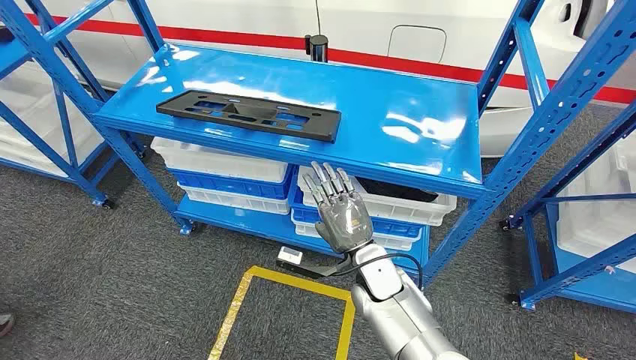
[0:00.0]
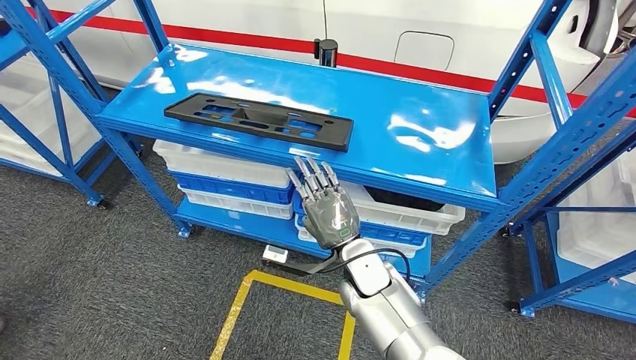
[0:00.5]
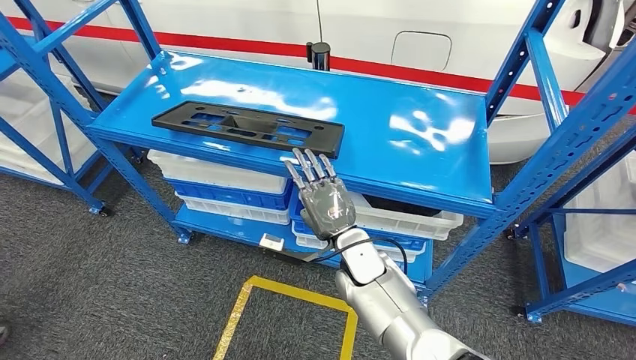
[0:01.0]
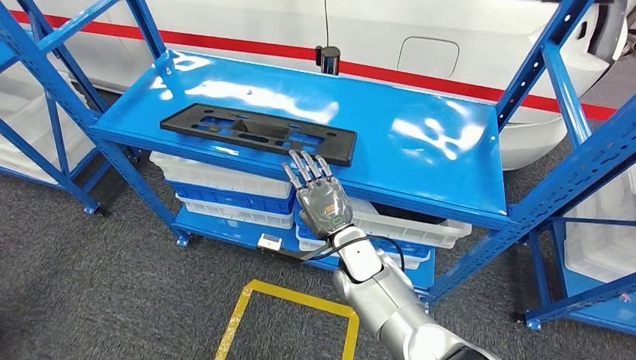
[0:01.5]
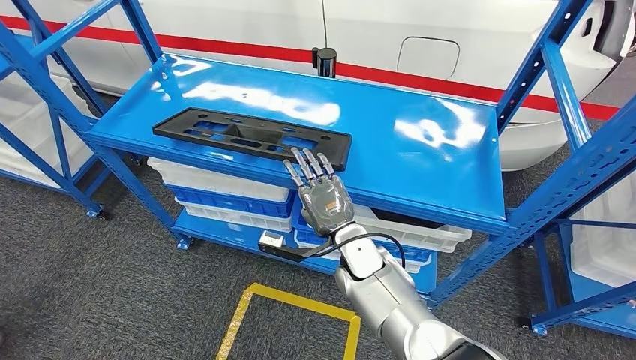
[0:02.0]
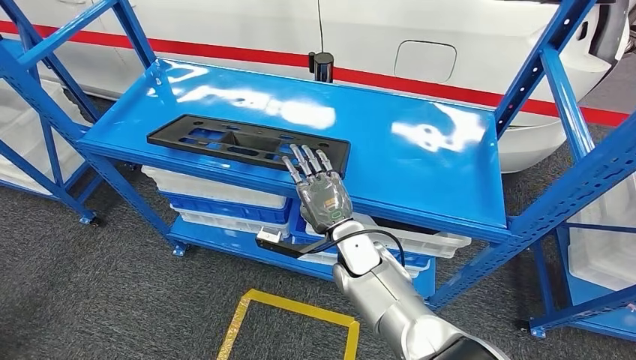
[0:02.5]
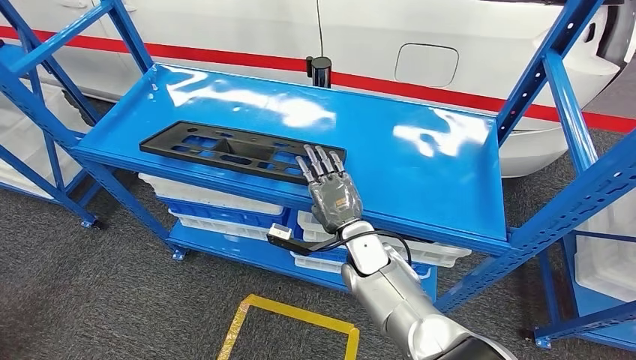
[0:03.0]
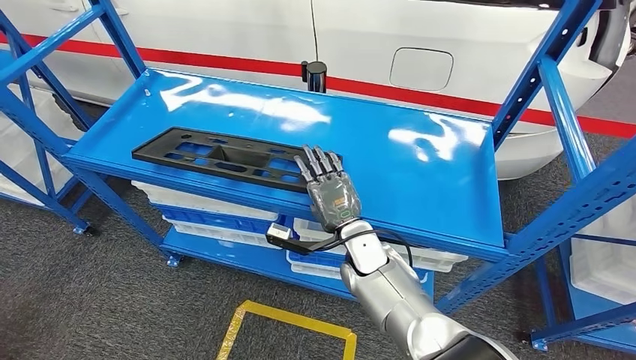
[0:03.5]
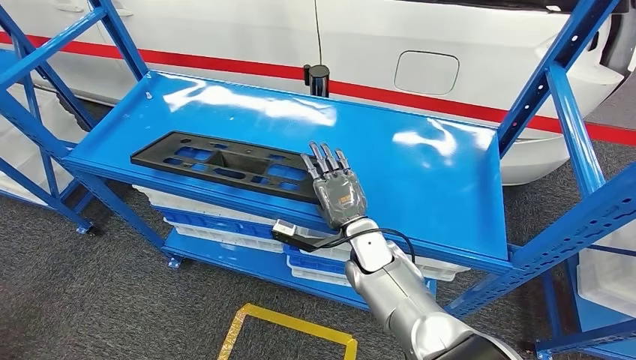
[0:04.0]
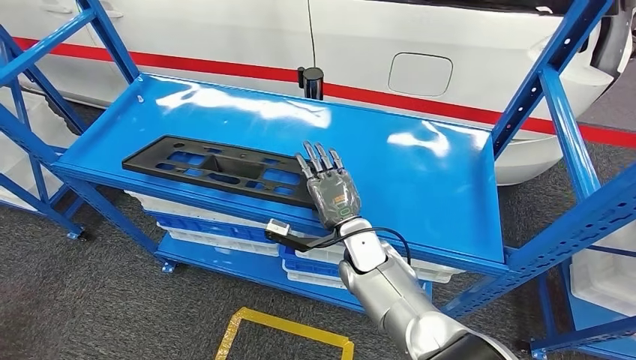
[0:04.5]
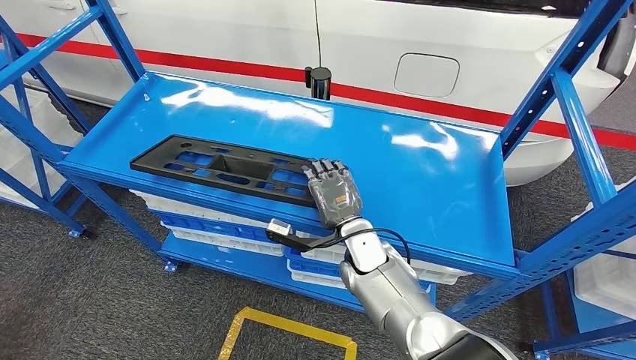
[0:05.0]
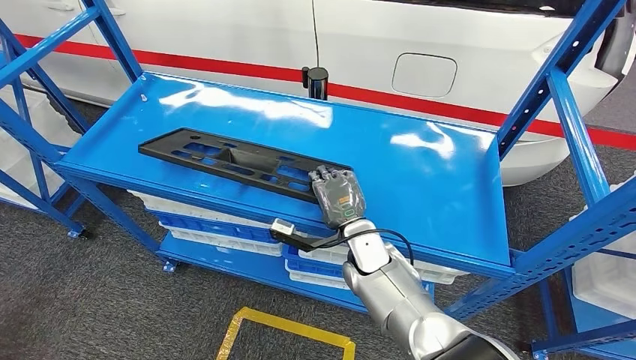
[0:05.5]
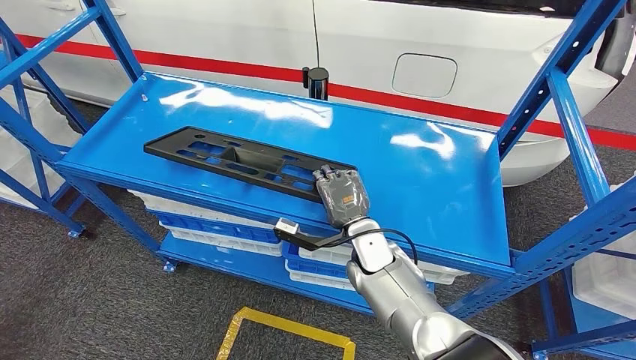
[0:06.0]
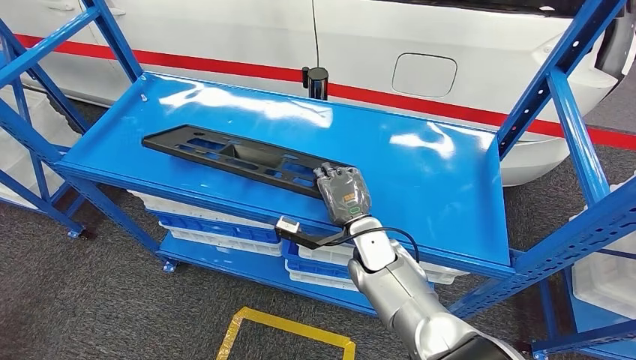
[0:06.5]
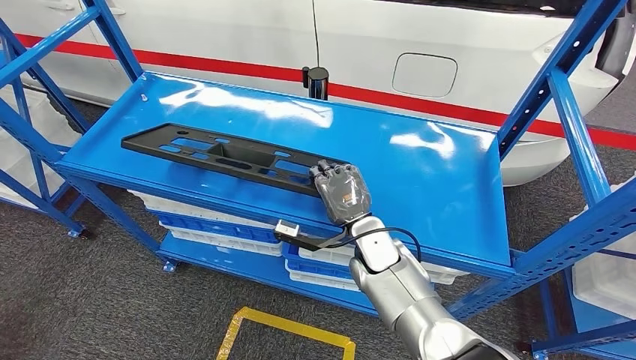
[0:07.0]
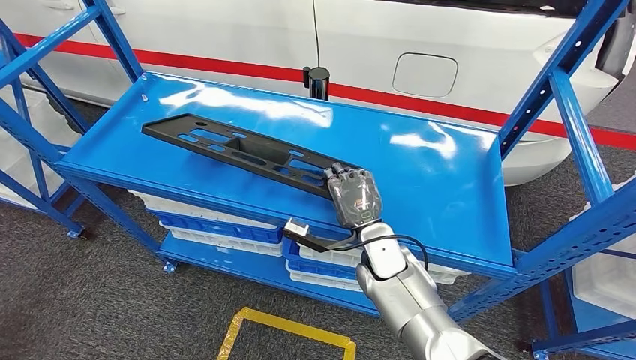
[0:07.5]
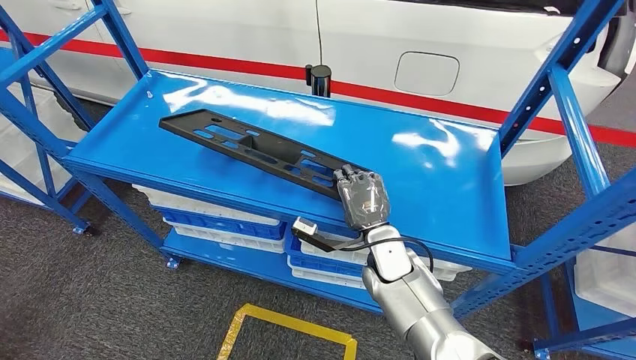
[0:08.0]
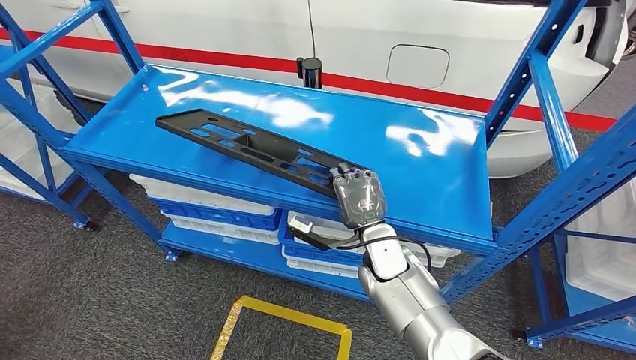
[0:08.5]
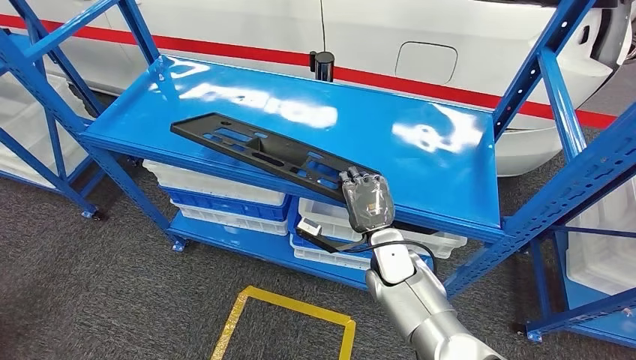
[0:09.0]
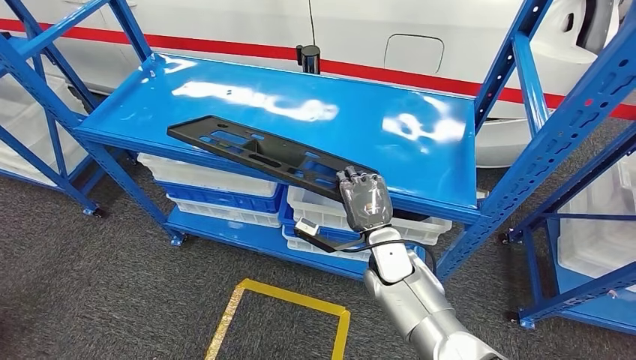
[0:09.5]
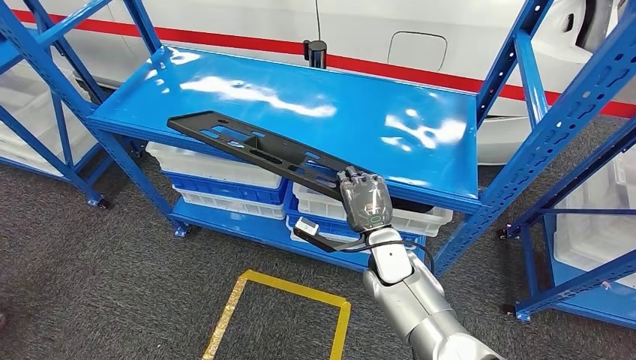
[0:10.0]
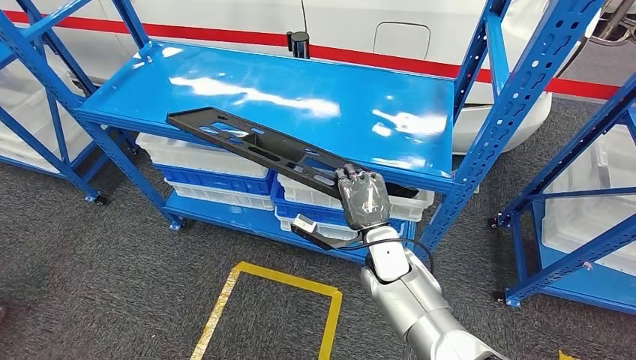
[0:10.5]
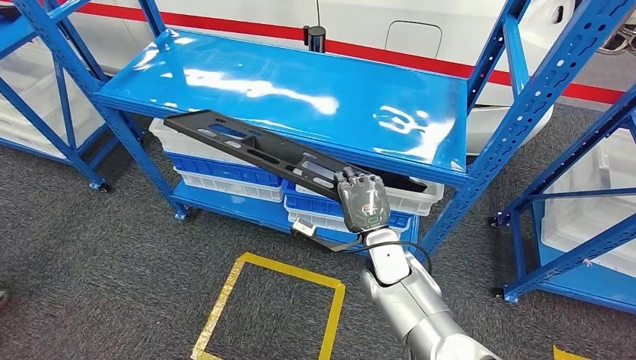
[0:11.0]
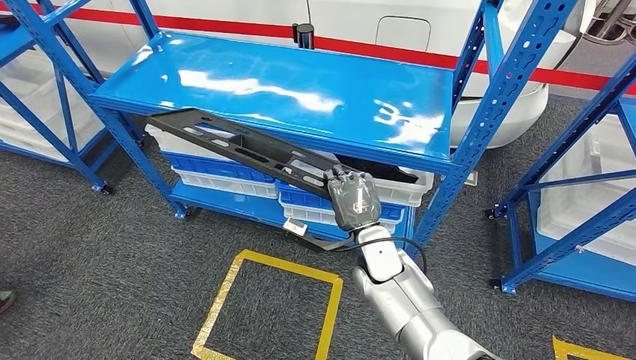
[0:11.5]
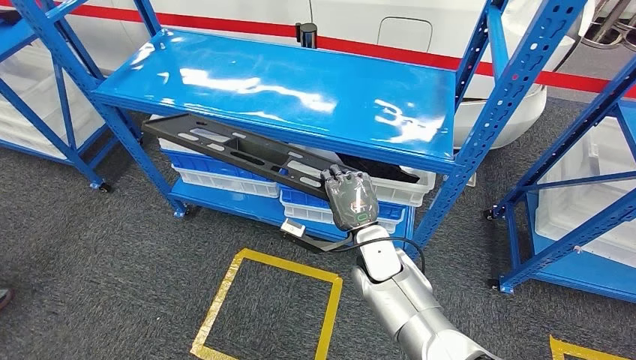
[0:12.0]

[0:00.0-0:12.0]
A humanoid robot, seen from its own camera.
Step, 0:00.0 to 0:09.0: Pick up the large material from the shelf.

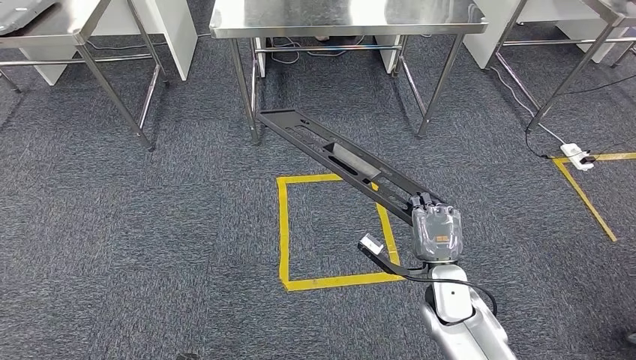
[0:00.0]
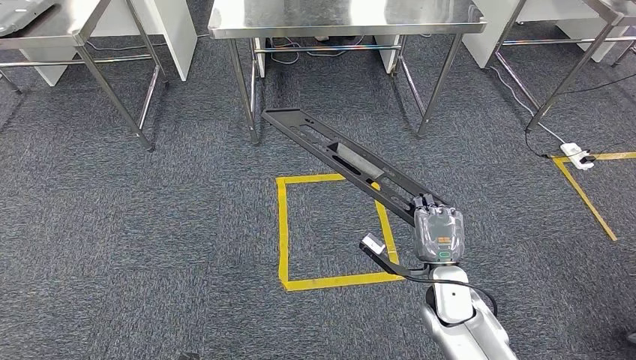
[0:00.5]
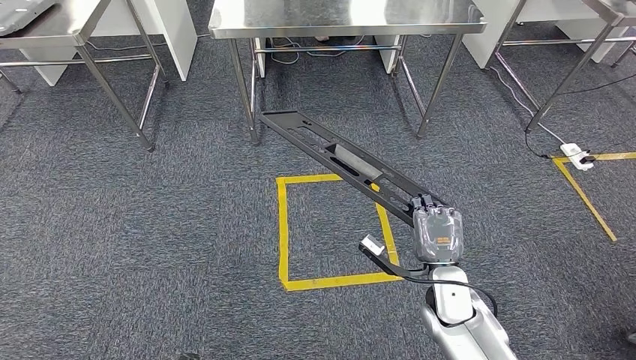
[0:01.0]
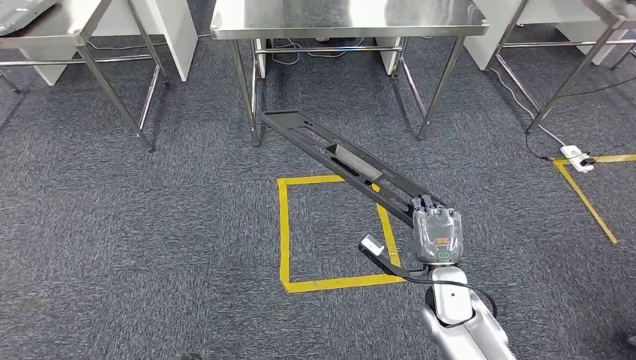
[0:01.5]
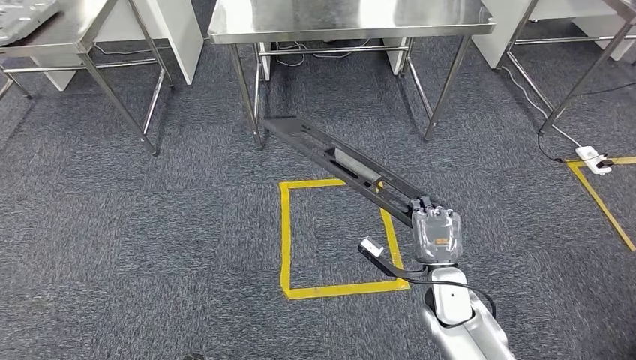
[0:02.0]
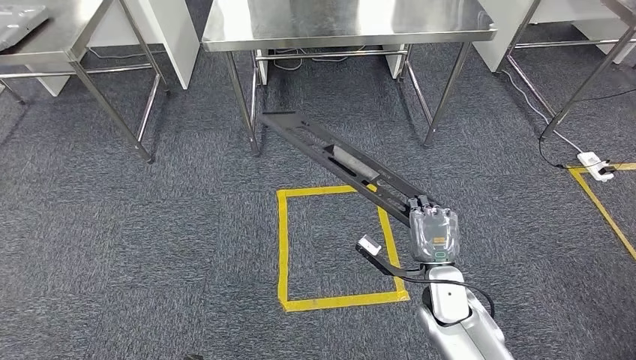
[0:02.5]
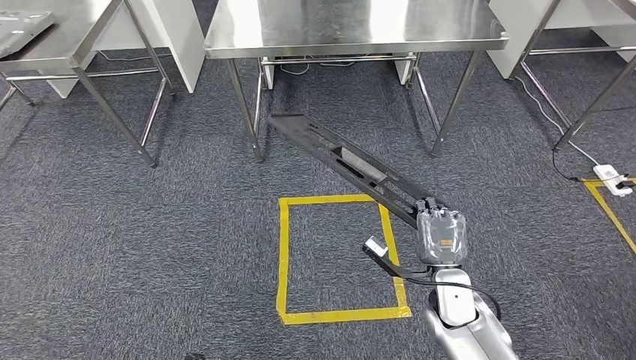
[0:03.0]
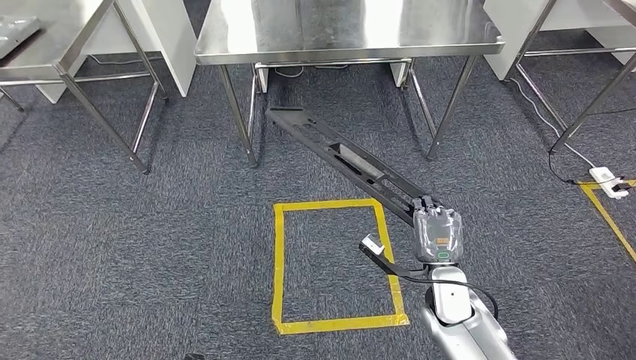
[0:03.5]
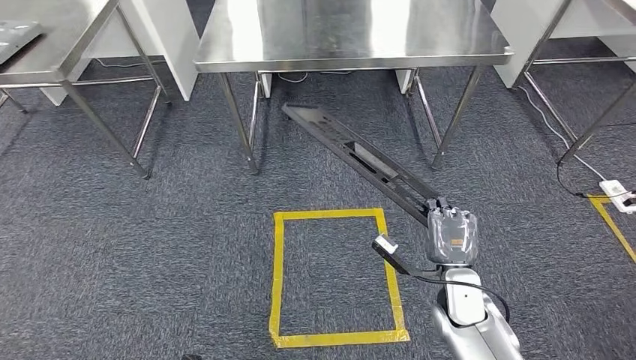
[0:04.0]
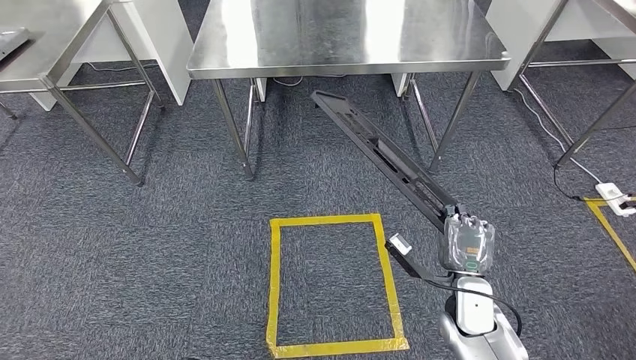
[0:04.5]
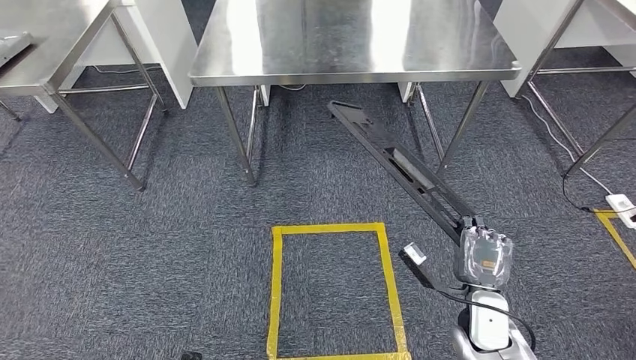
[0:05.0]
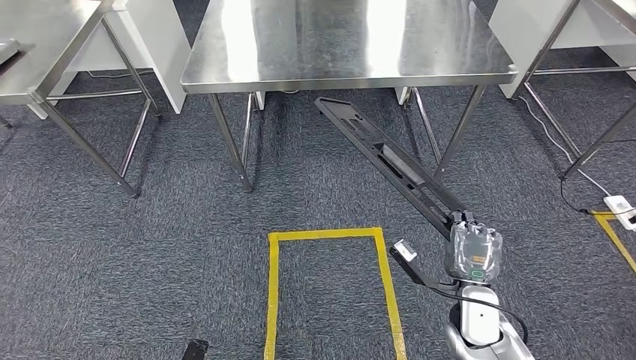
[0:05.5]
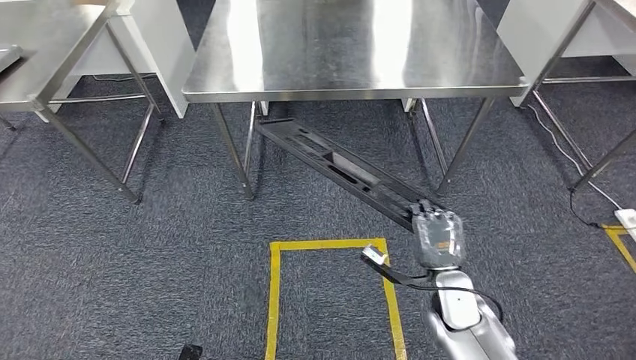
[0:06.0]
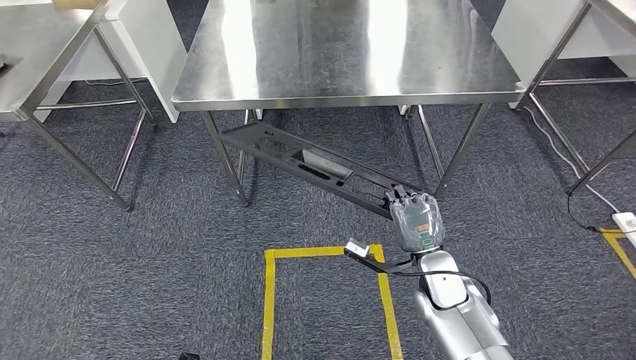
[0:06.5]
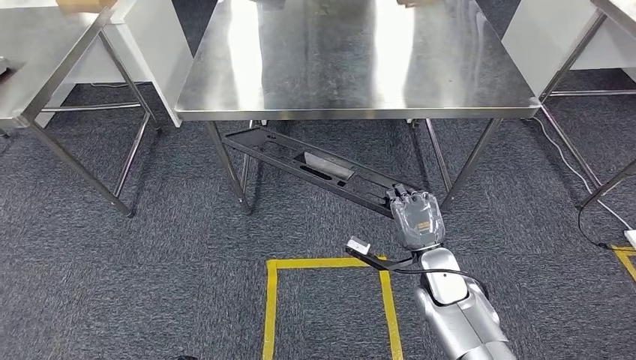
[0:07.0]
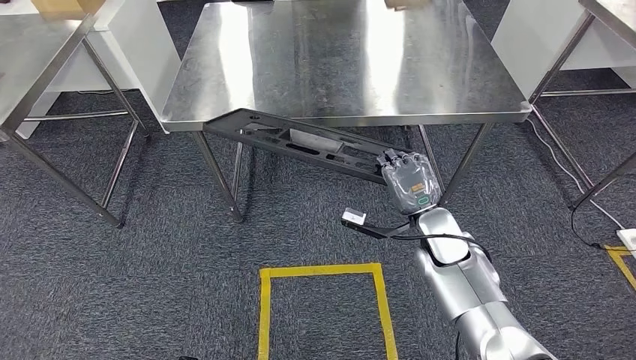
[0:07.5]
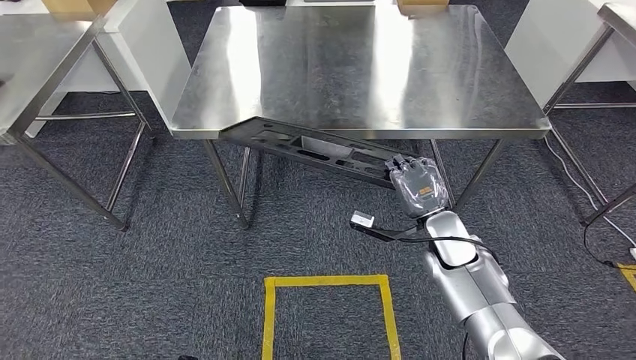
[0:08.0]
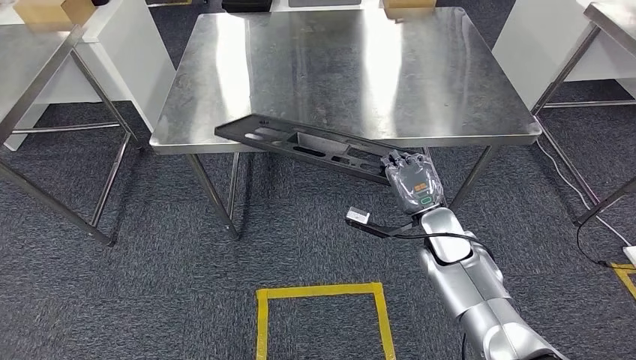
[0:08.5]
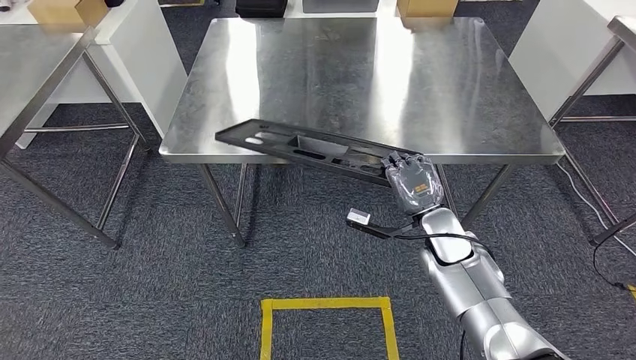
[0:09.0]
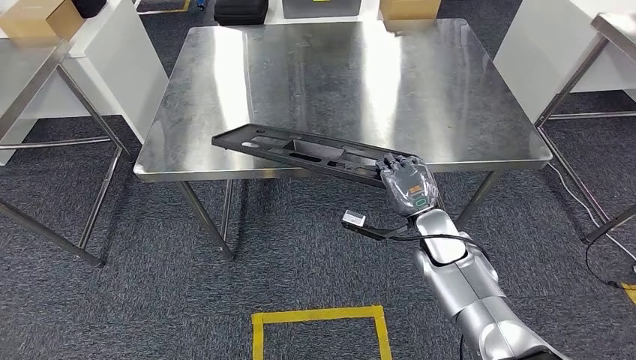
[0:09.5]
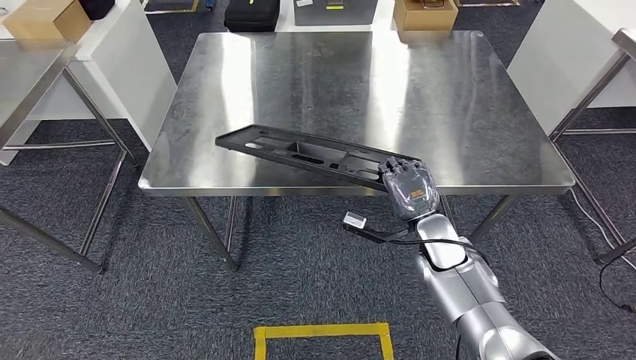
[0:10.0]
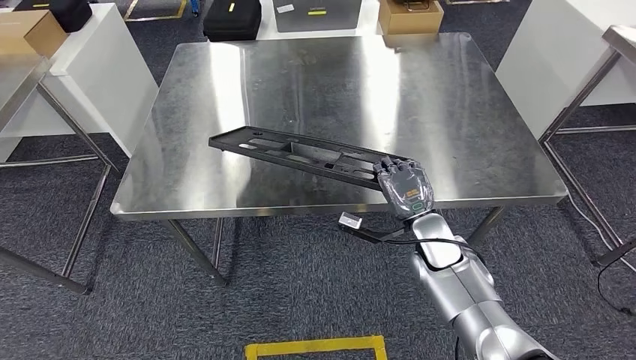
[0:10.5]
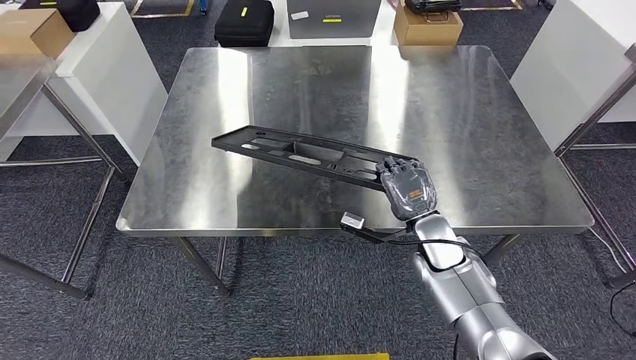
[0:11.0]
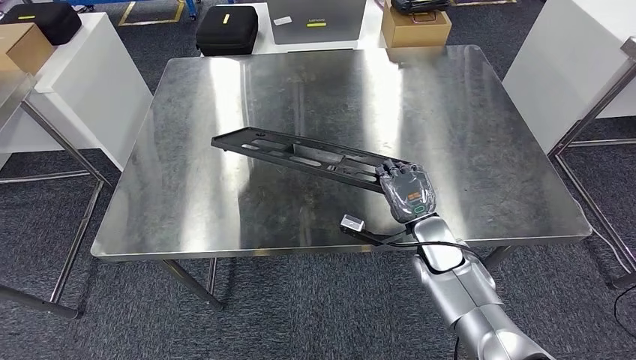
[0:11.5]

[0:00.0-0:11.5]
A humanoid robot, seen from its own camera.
0:00.0 to 0:02.0: The hands move only a little.
